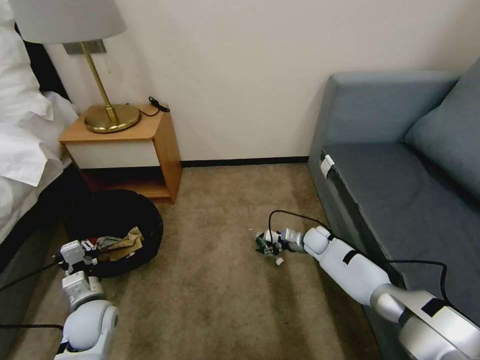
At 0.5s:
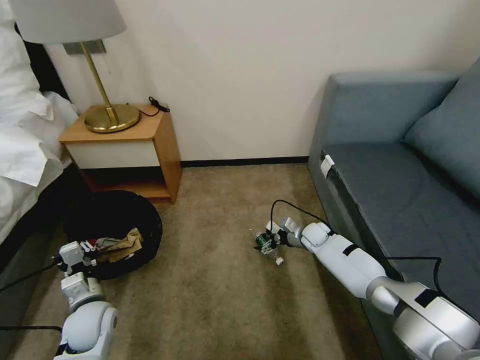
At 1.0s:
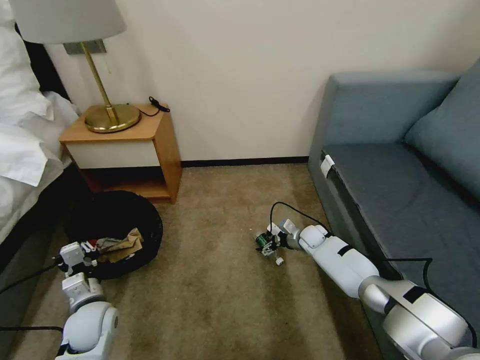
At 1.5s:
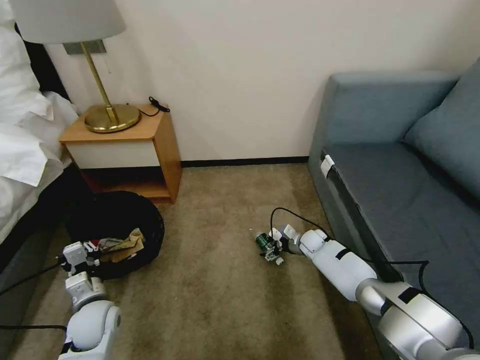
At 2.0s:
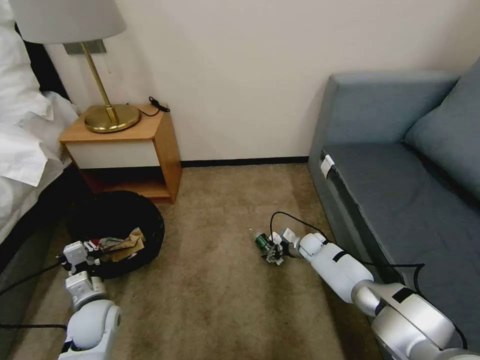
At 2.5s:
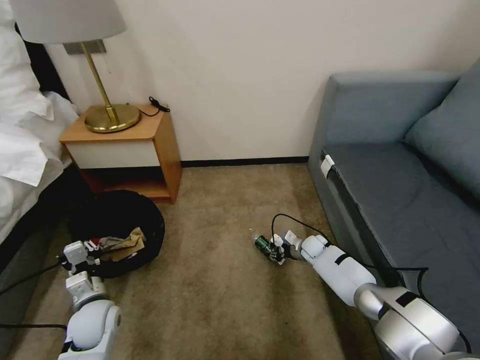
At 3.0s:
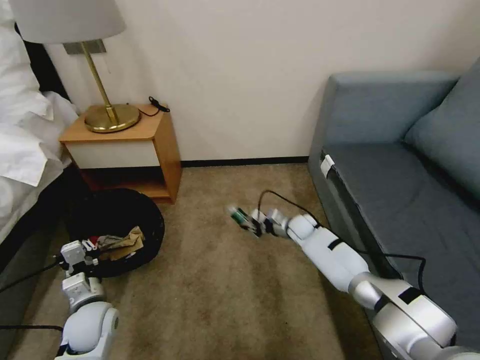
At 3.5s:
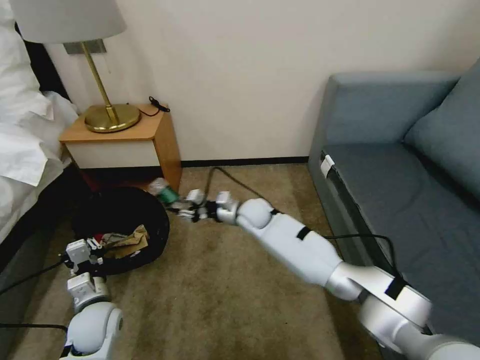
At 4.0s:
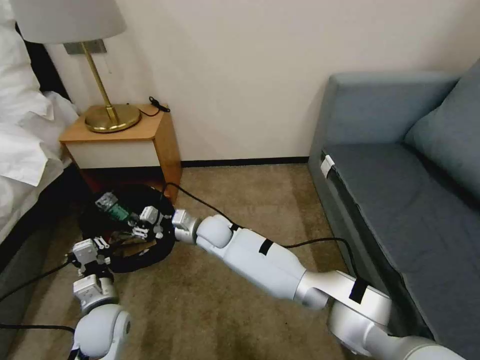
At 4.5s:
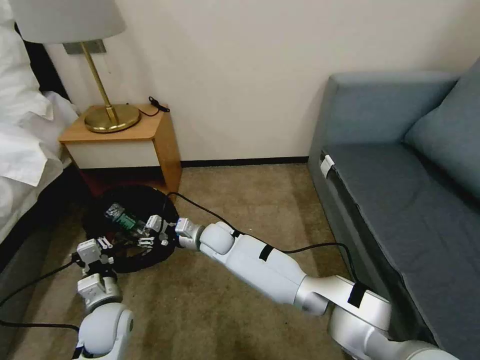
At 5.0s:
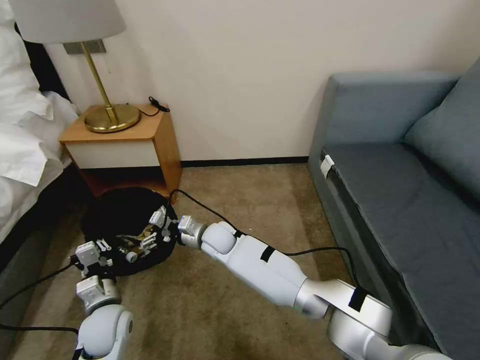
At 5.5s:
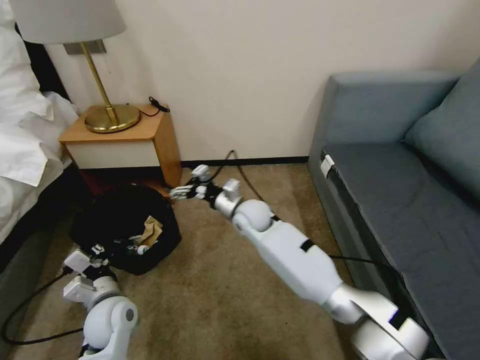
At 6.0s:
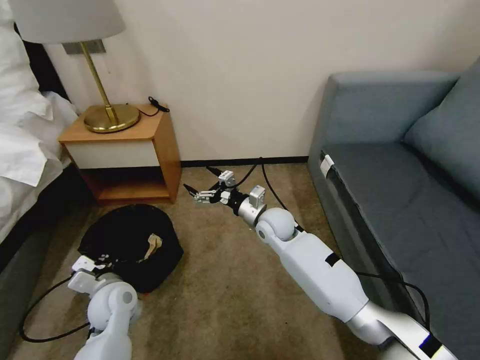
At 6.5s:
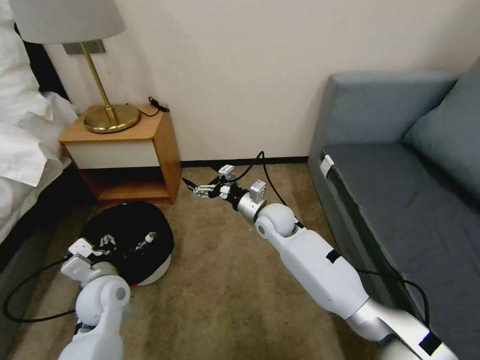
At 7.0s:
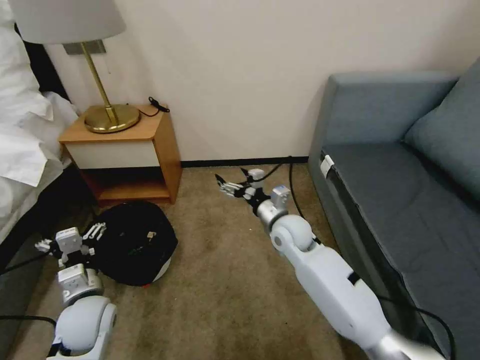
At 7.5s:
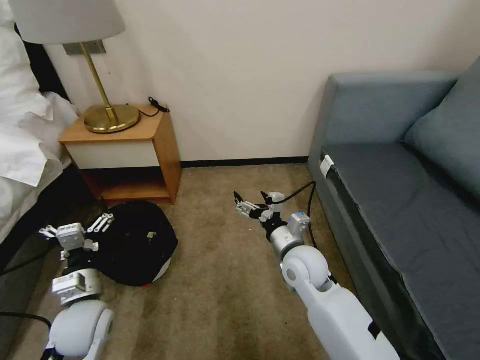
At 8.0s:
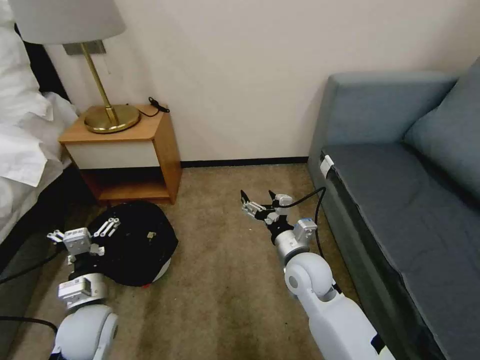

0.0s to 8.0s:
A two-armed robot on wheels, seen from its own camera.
Task of the whole recording: Pick up the trash bin, then pick up the garbage on the floor and place it into the trash bin.
2.0s to 4.0s: The right gripper travels to the left and upward by some 35 cm, and closes its fingers.
4.0s to 6.0s: The right gripper is displaced to the right by some 15 cm, and opens.
6.0s to 8.0s: The left gripper heads backward, covering about 5 cm, and opens, while the right gripper travels backward and to the right by some 15 cm.
